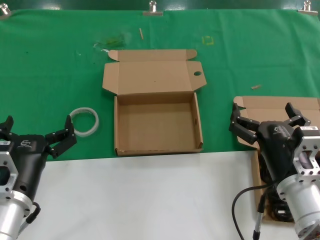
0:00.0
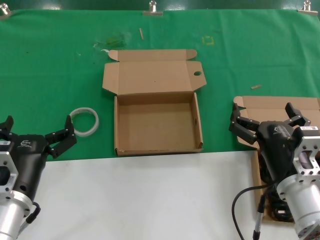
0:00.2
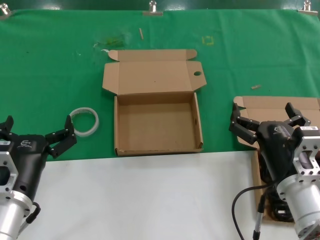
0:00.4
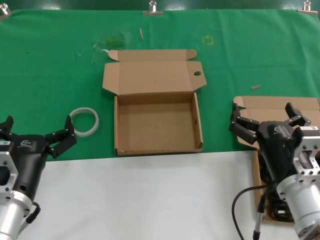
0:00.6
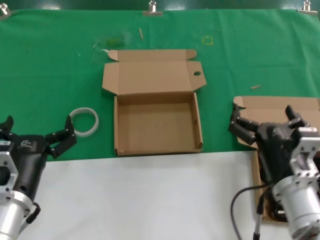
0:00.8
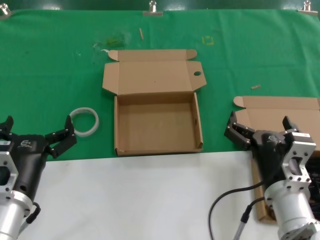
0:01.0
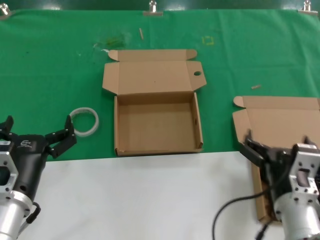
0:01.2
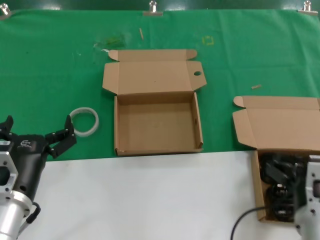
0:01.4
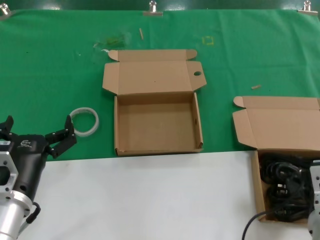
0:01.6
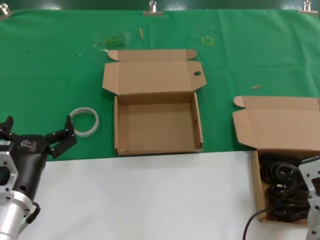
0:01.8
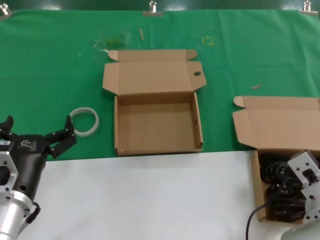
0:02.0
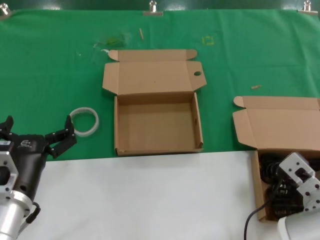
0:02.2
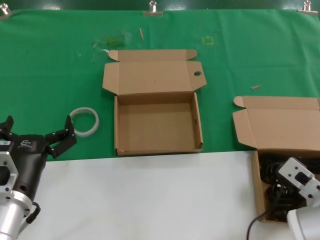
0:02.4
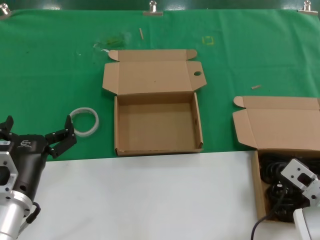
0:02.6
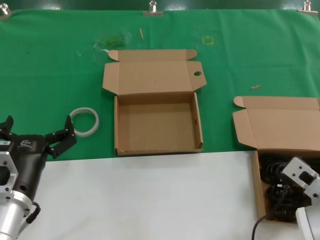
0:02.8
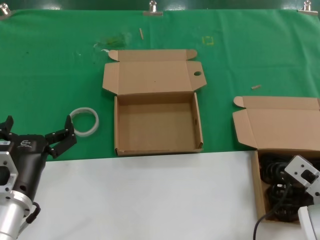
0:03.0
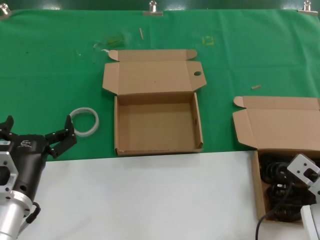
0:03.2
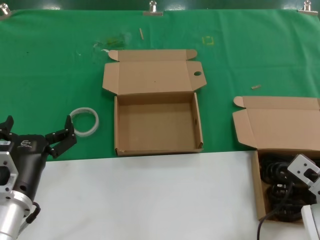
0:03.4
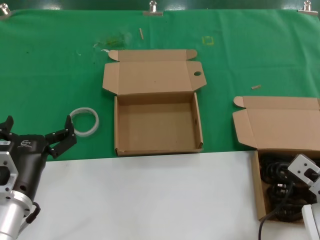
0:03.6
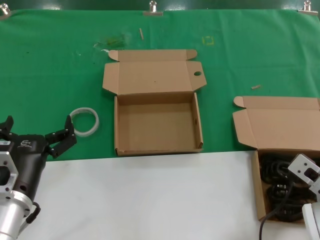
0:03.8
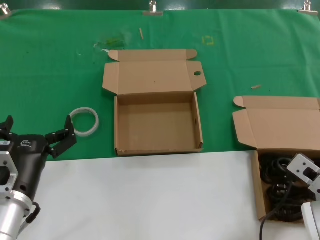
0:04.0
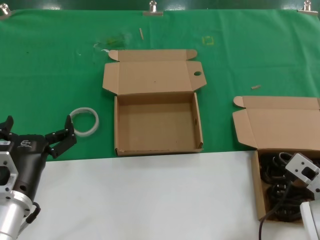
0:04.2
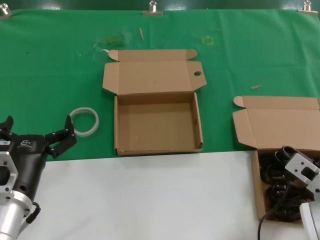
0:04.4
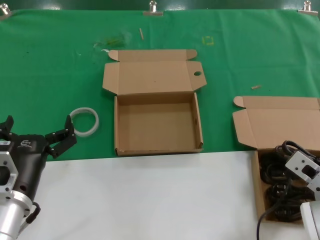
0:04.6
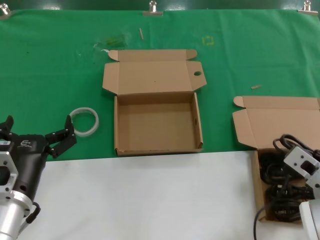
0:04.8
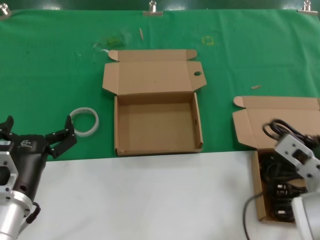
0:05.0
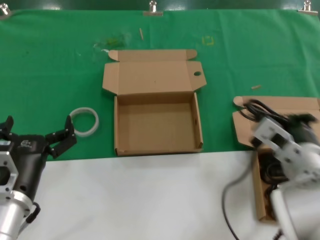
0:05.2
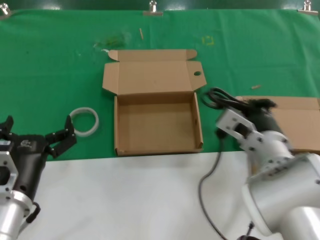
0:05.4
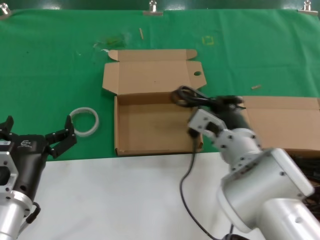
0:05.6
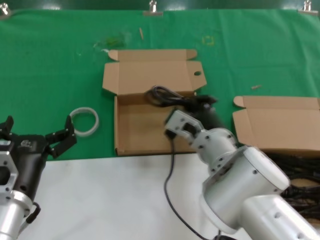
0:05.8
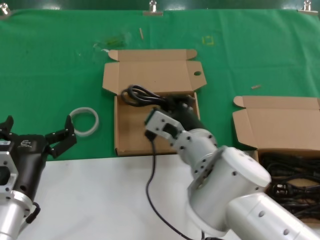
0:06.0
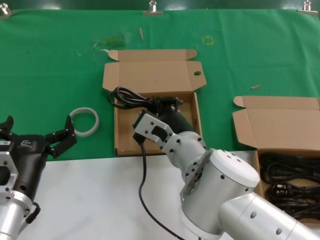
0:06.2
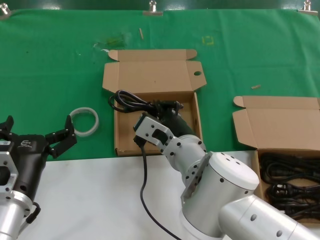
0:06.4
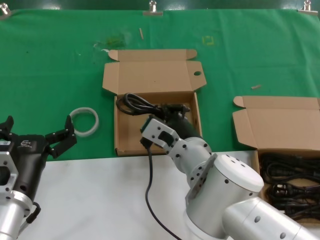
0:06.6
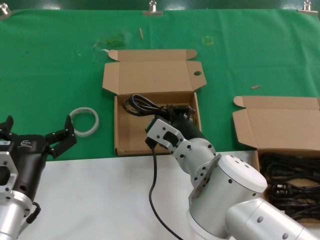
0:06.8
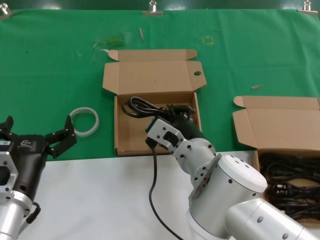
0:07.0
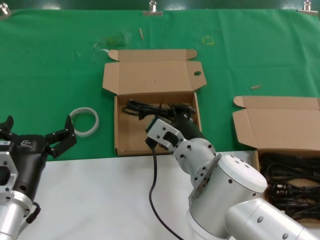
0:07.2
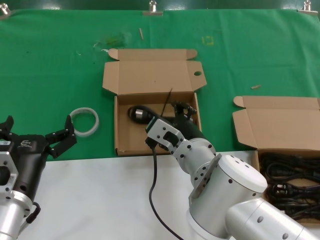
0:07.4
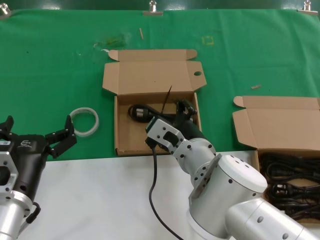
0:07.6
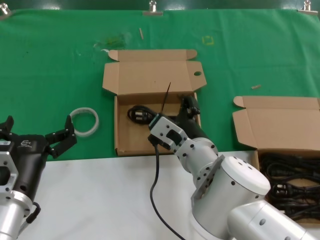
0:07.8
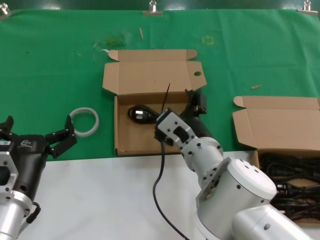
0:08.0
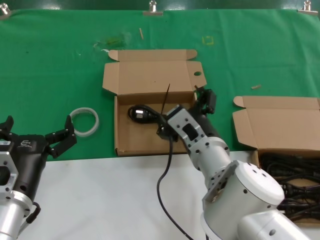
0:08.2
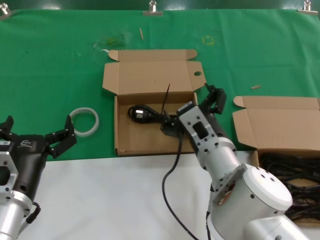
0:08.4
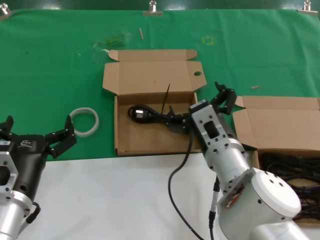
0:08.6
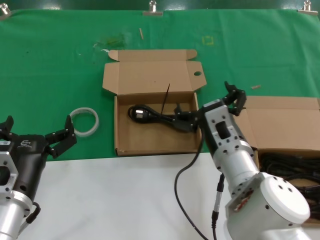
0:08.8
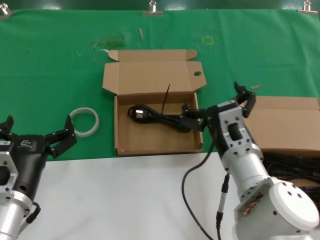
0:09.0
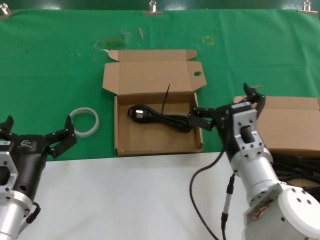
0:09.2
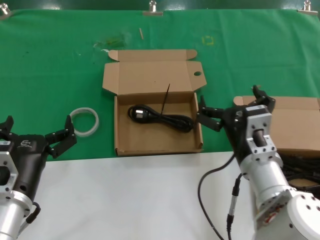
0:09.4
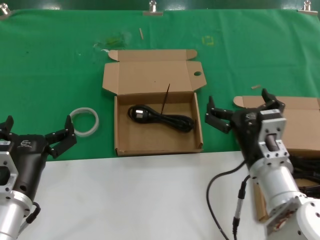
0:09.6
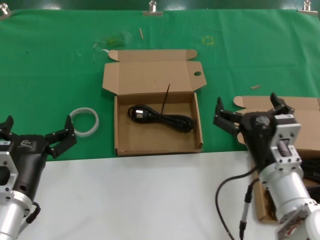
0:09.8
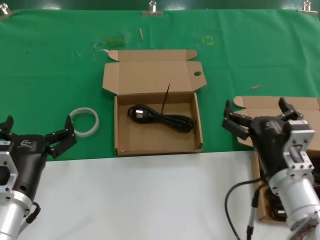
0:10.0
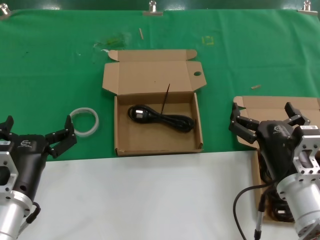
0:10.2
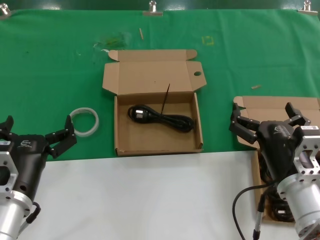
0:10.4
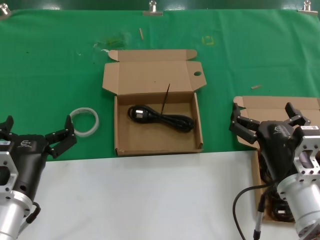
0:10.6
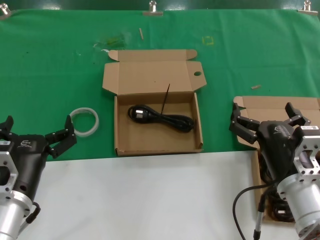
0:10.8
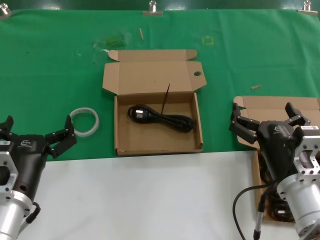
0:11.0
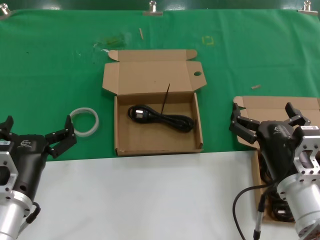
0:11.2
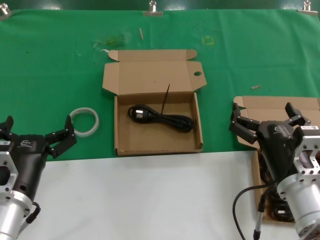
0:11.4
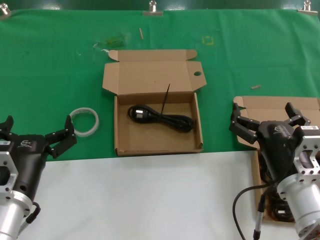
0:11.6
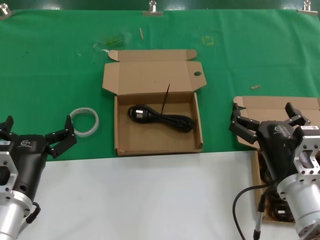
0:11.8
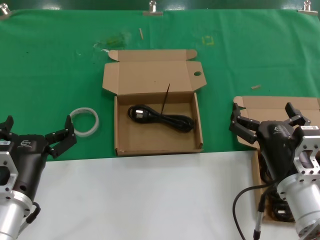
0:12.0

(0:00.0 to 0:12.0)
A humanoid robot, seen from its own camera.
Task of the whole recording: take the parts from the box containing them and put them into an empty box.
Step, 0:00.0 - 0:04.0: Grasp the data cable.
Step, 0:04.4 - 0:07.4: Place the data cable in the another box.
0:00.0 - 0:01.6: The right hand shifts approximately 5 cm backward.
0:01.6 - 0:03.0: The right hand heads forward, covering approximately 5 cm.
0:03.0 - 0:04.4: There are only small adjustments of the hands.
0:04.4 - 0:06.0: The right hand travels to the left by some 20 cm.
0:06.0 - 0:07.6: There are only small adjustments of the hands.
0:07.6 - 0:09.0: The right hand travels to the right by roughly 5 cm.
0:09.0 - 0:10.4: The right hand shifts roughly 10 cm to the right and backward.
0:10.4 - 0:12.0: Both hands stay about where they are.

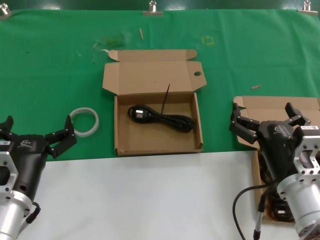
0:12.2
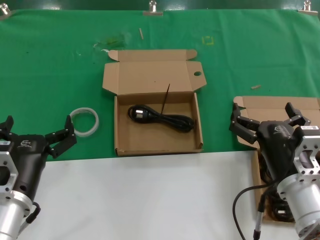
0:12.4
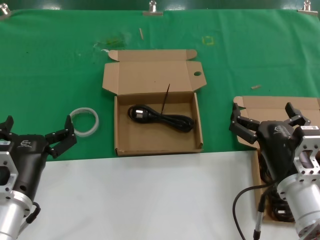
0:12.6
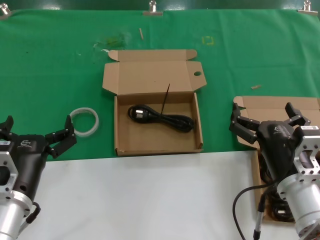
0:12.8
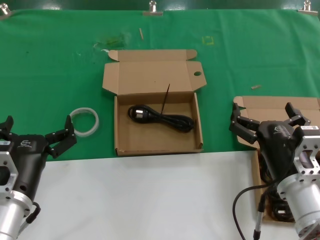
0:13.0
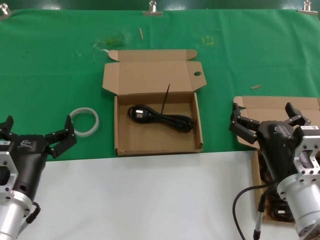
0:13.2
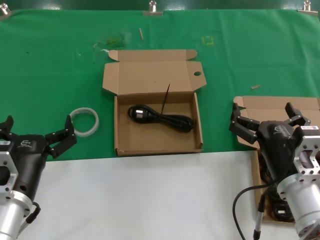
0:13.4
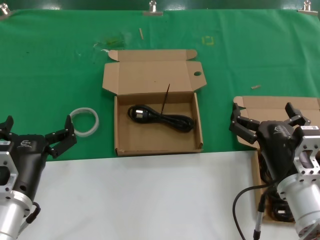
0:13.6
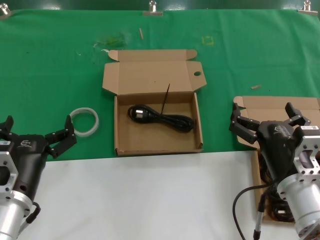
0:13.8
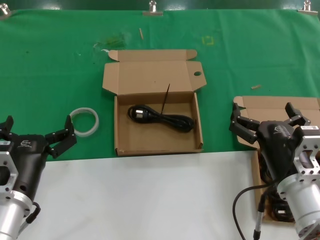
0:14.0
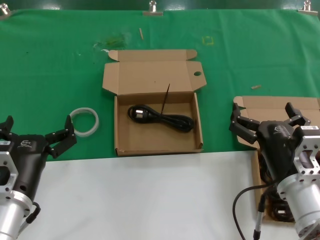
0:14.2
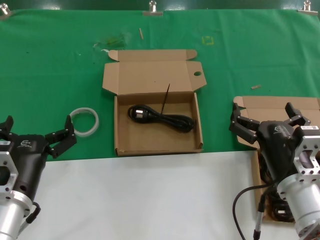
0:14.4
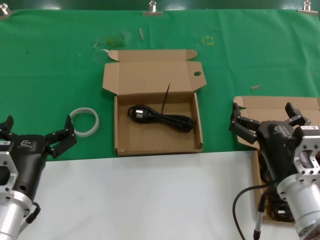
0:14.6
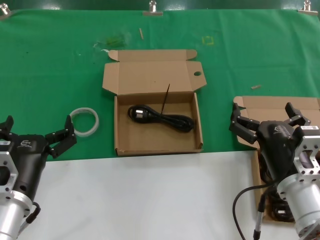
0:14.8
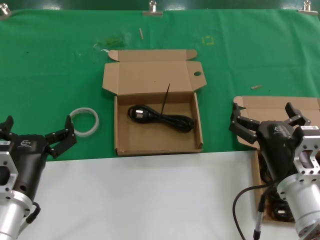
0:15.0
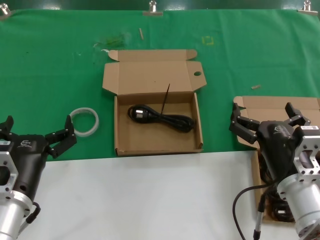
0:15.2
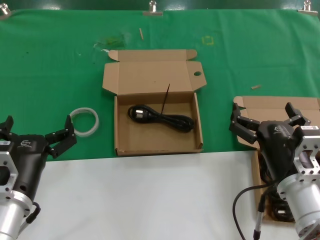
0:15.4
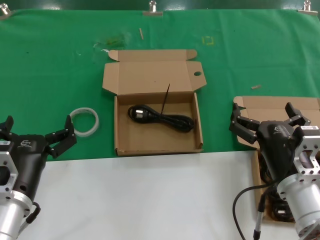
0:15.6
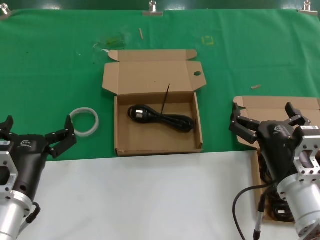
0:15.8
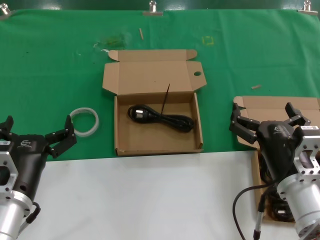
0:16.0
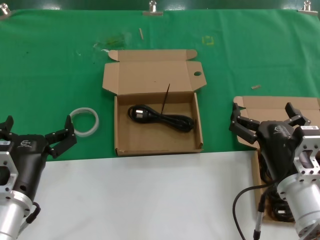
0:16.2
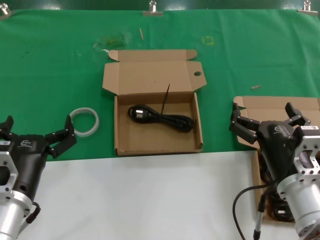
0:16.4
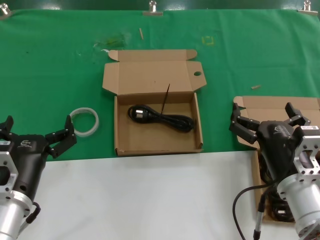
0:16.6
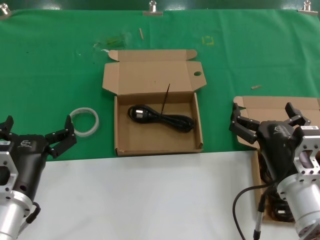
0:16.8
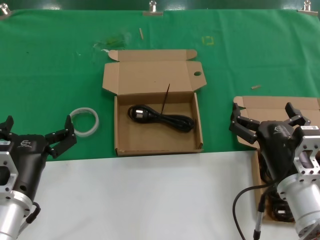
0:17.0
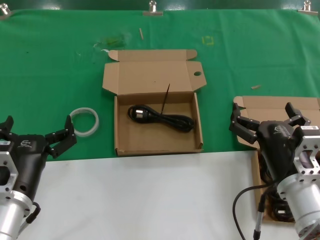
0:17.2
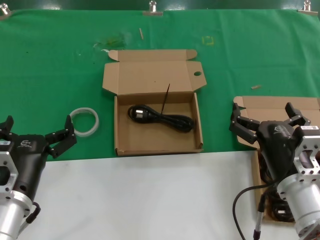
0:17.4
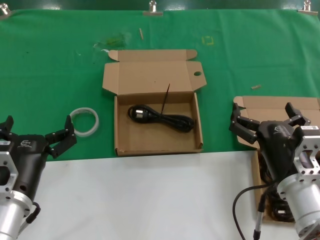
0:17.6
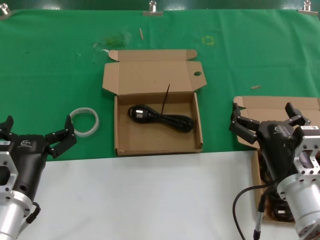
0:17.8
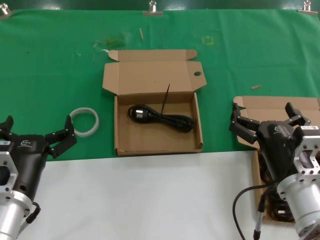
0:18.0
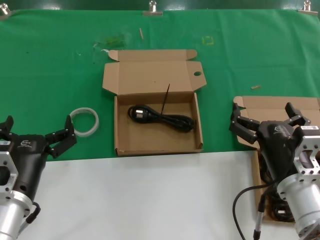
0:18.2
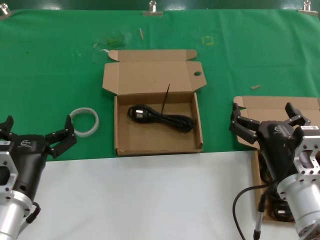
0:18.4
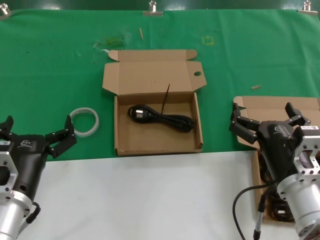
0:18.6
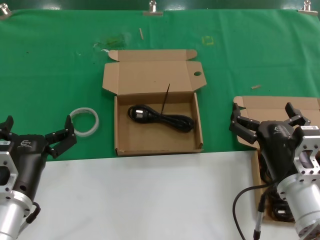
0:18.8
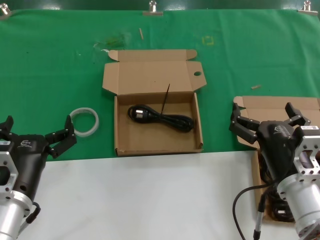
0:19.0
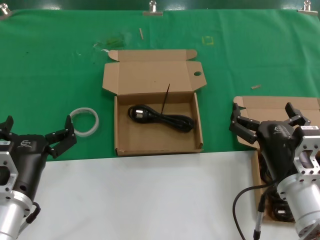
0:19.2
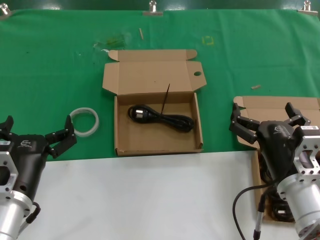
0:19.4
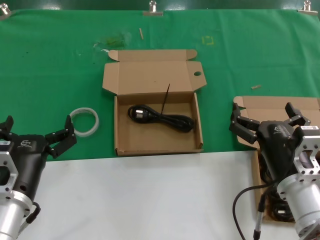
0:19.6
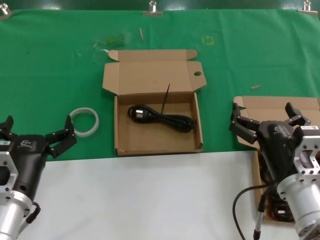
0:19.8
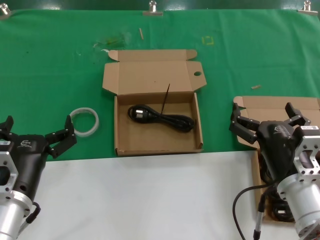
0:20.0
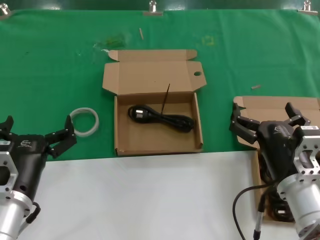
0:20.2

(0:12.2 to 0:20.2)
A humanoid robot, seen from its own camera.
Task of the whole recording: take the parts from the box containing them and put them into an empty box.
0:12.2 - 0:20.2: Both hands stay about where they are.
